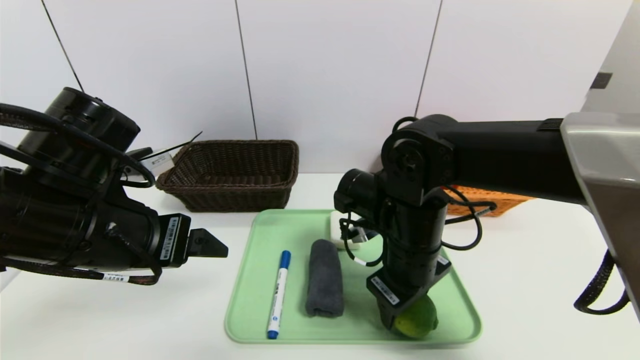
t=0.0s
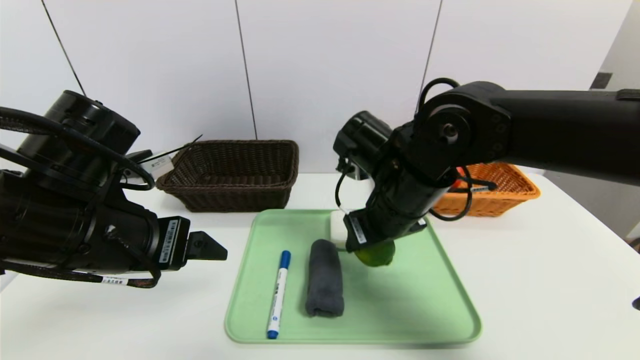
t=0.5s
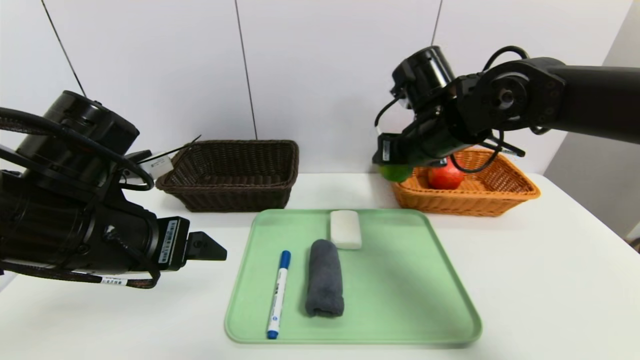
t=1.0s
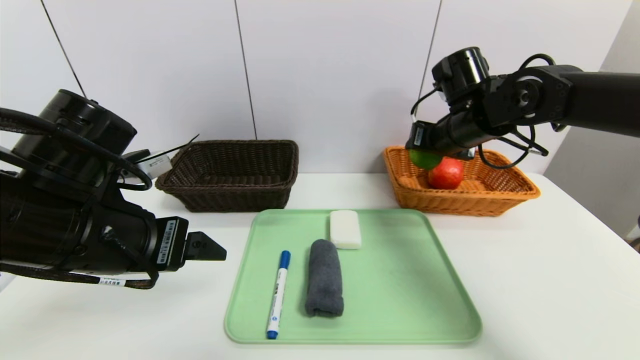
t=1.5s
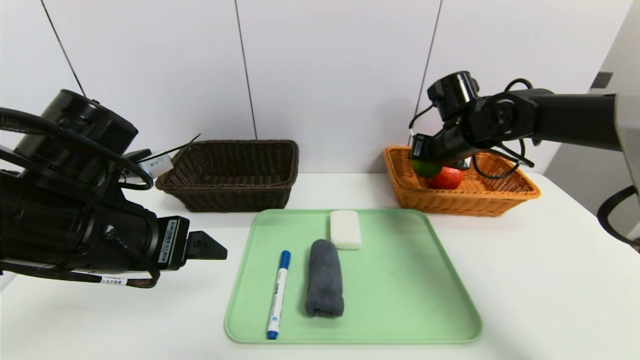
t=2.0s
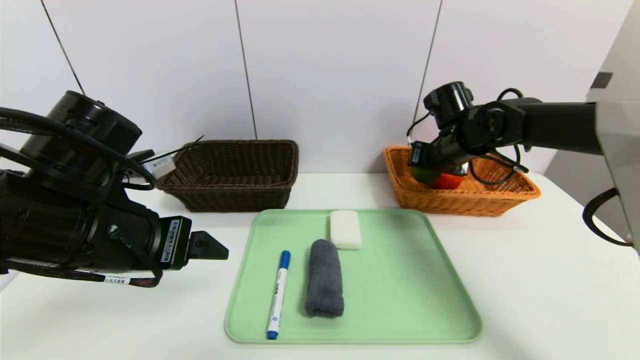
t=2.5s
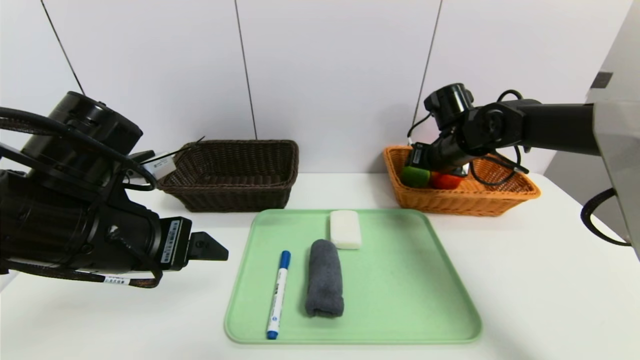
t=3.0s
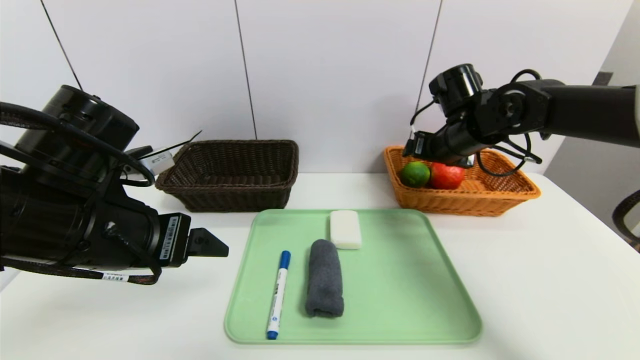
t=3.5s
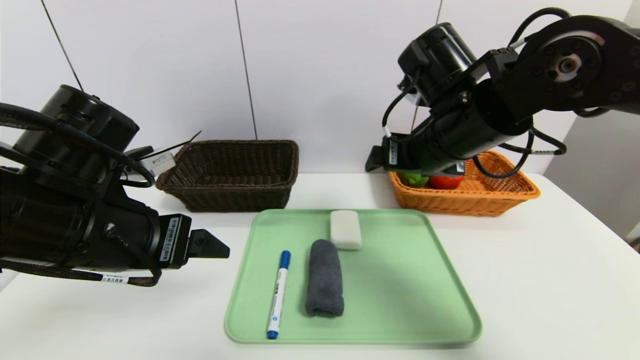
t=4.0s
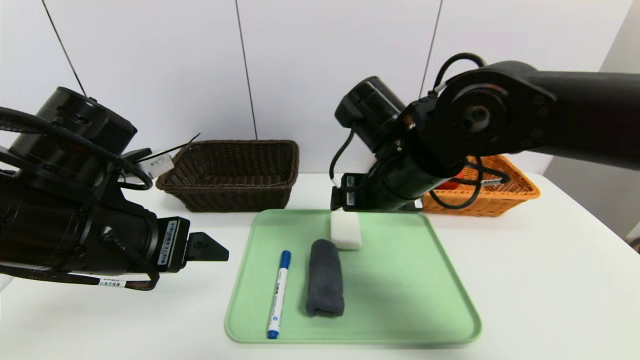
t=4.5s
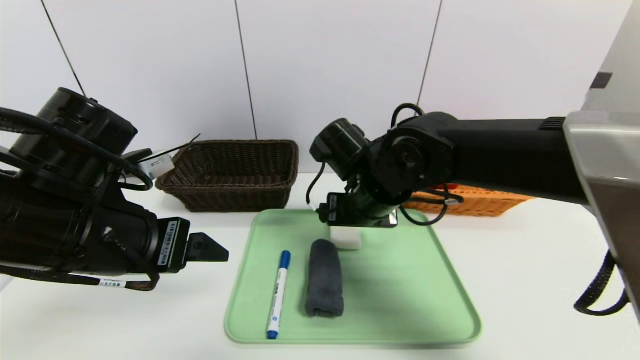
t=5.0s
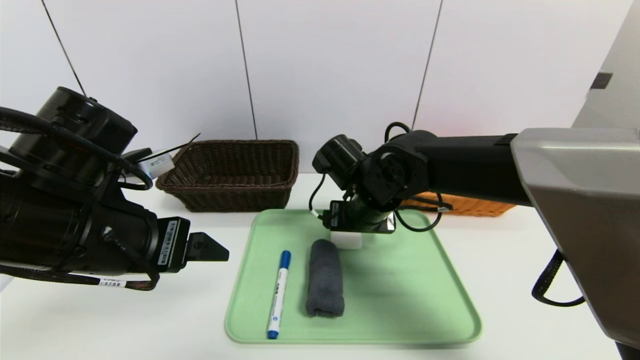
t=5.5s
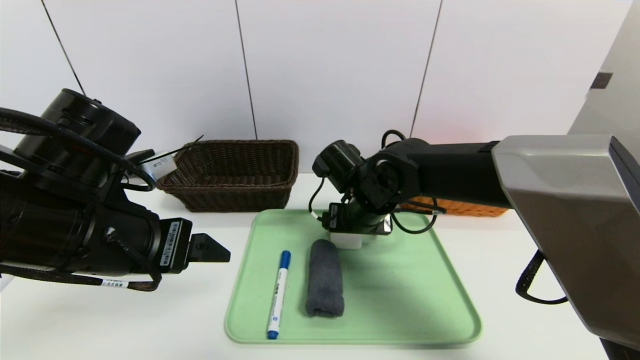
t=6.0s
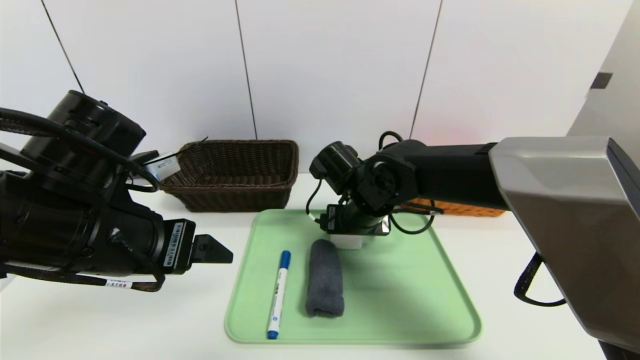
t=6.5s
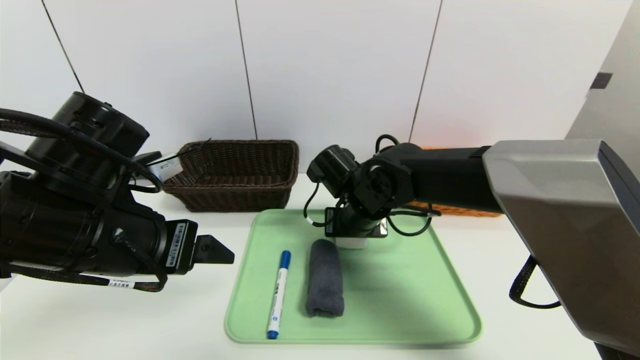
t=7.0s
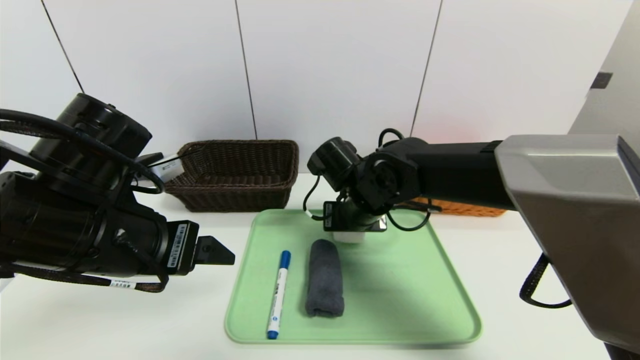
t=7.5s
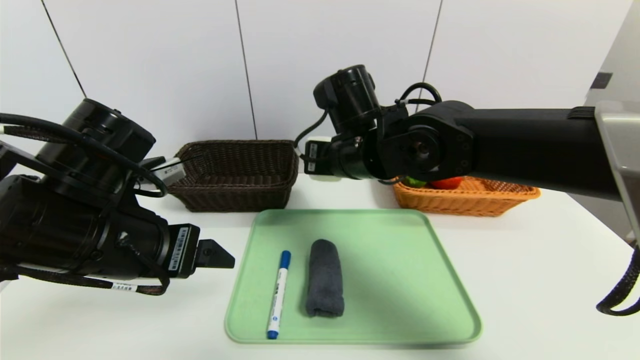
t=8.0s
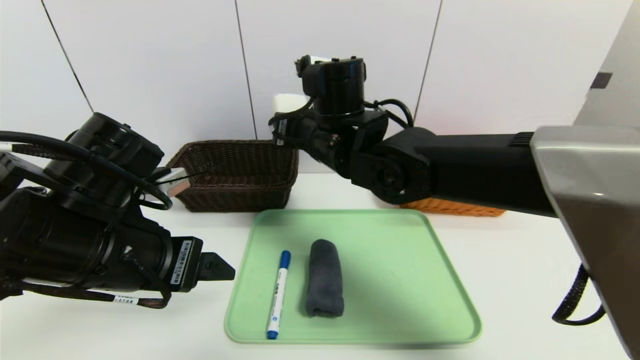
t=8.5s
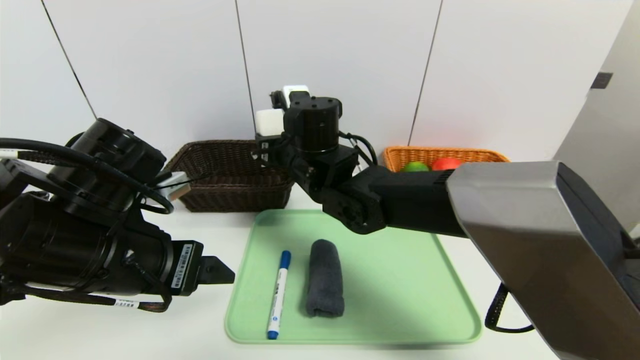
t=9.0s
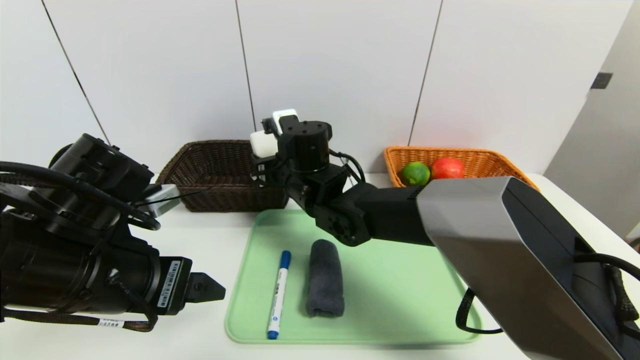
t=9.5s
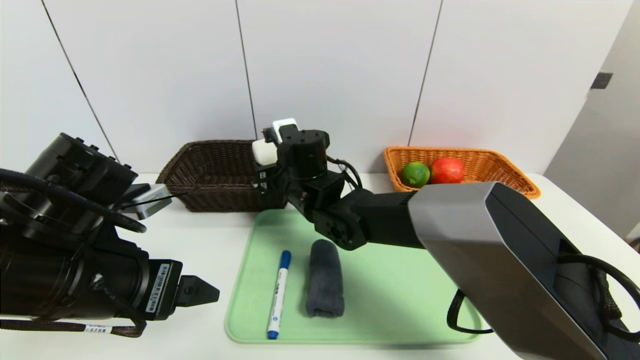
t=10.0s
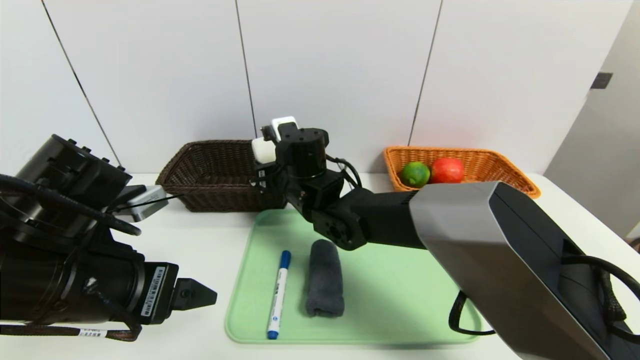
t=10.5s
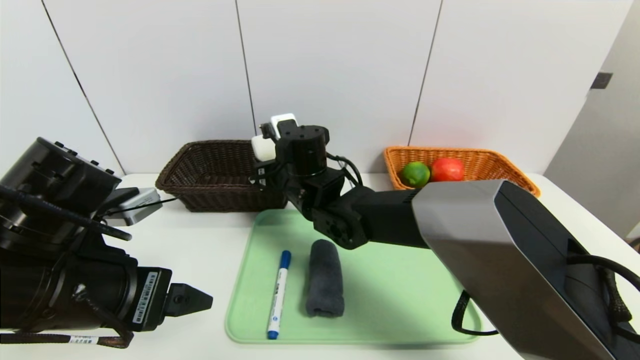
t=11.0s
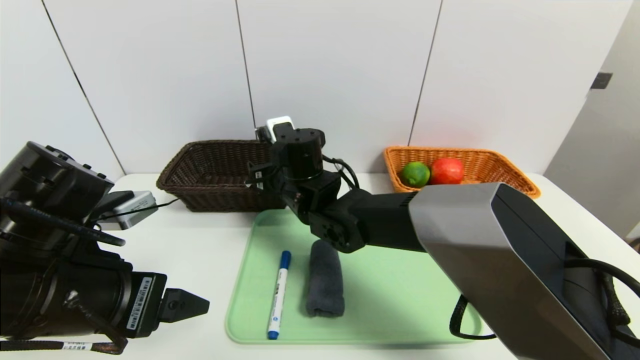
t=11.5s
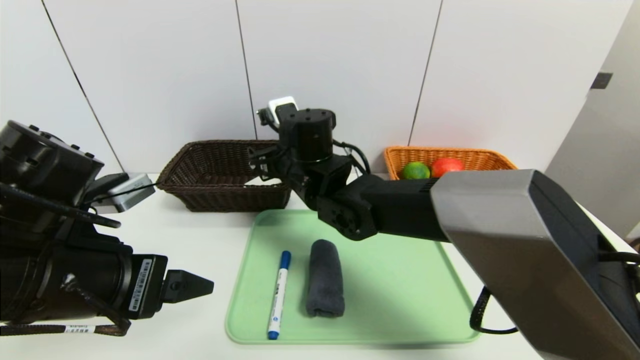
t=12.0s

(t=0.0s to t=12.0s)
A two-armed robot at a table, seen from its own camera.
Task of the whole recording: place the food in the right basket with the right gripper, and place the non food items in the left basket with the left gripper.
Step, t=0.0s - t=3.5s: Grasp the lime and put it in the right basket.
Step, t=4.0s - t=12.0s: Grasp the soap and put it in the left basket.
t=0.0s - t=2.0s: The right gripper heads forward and to the right, covering some 20 cm.
t=2.0s - t=4.0s: The right gripper travels backward, to the left and upward by approximately 15 cm, and opens its fingers.
t=4.0s - t=6.0s: The right gripper travels downward and to the left by about 15 cm.
t=6.0s - t=8.0s: The right gripper moves upward, some 10 cm, and closes.
t=8.0s - t=10.0s: The right gripper is displaced downward and to the left by roughly 10 cm.
t=10.0s - t=12.0s: The right gripper opens up.

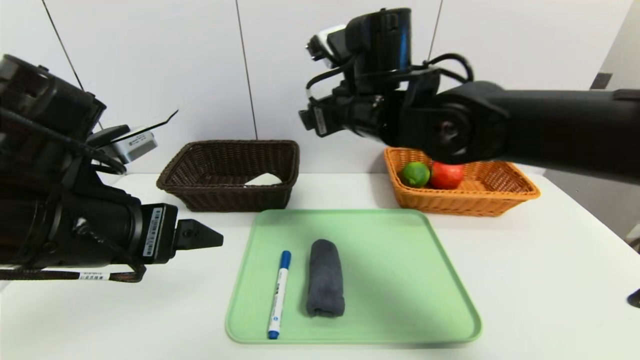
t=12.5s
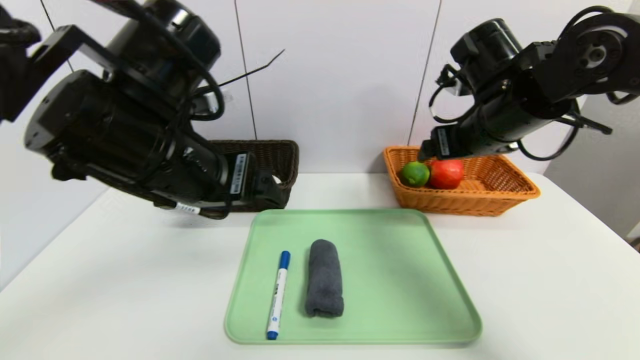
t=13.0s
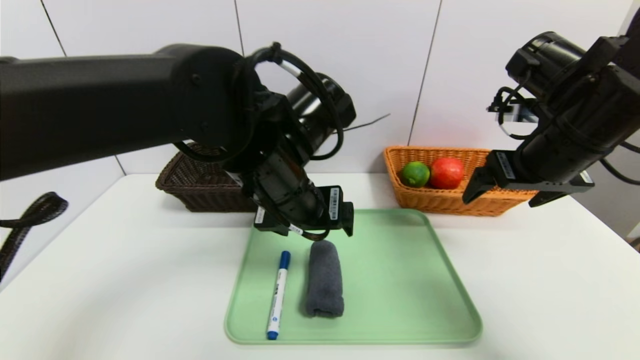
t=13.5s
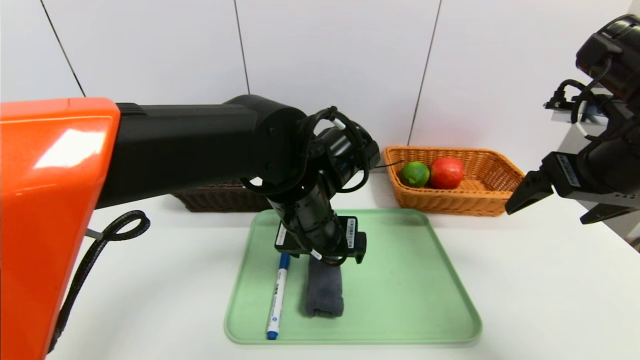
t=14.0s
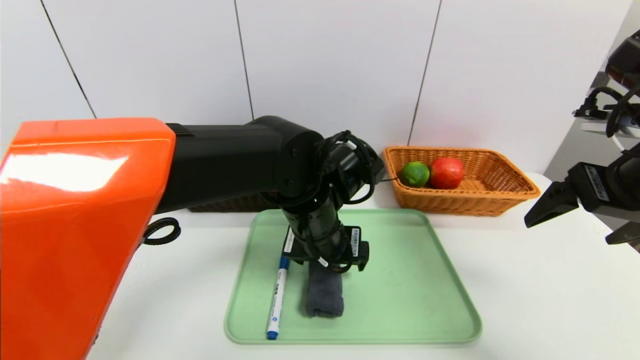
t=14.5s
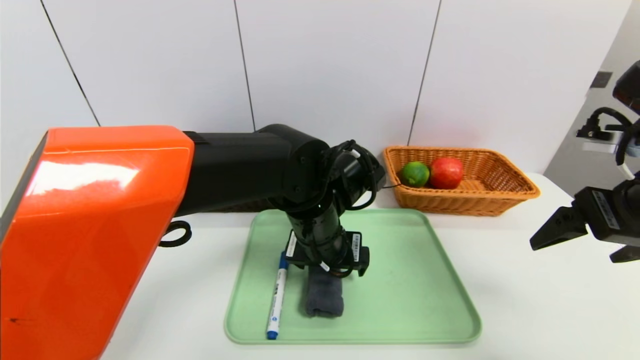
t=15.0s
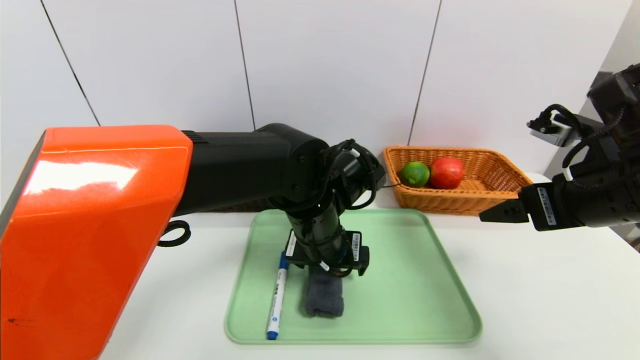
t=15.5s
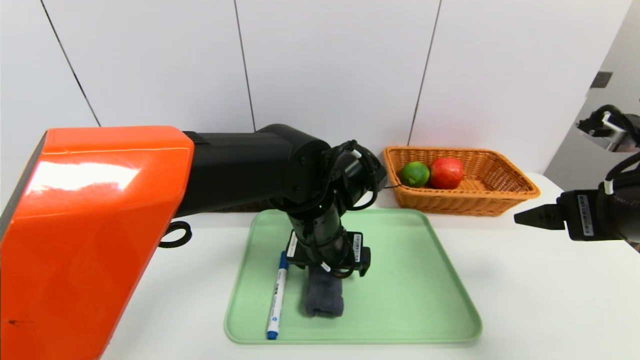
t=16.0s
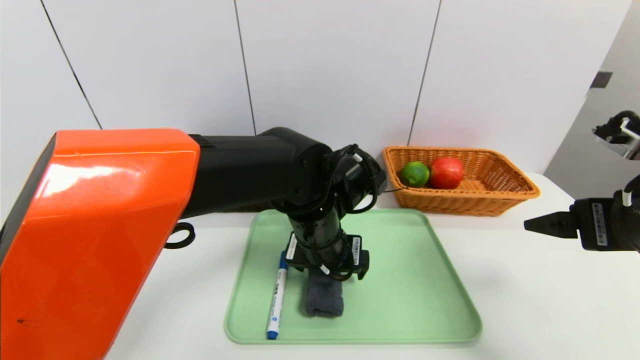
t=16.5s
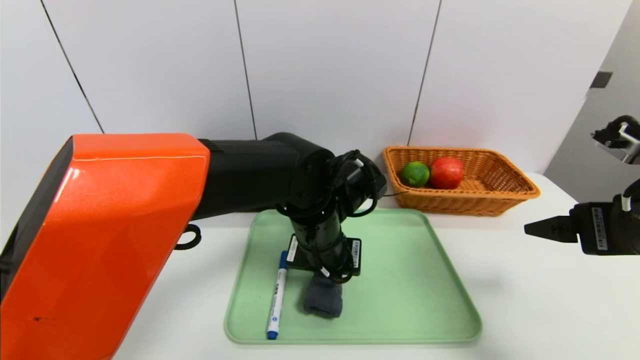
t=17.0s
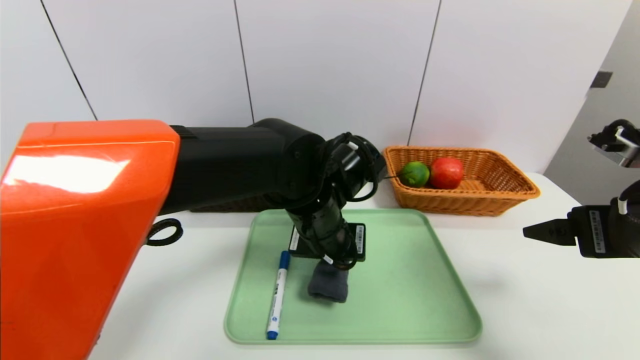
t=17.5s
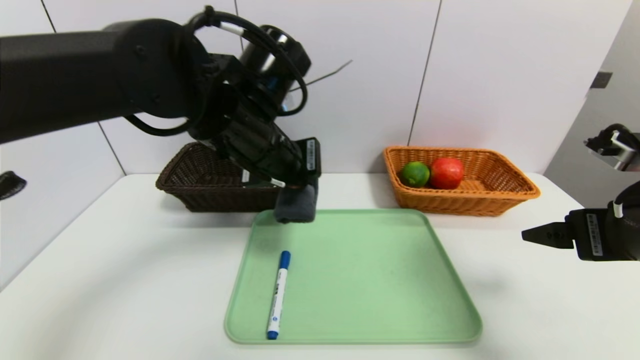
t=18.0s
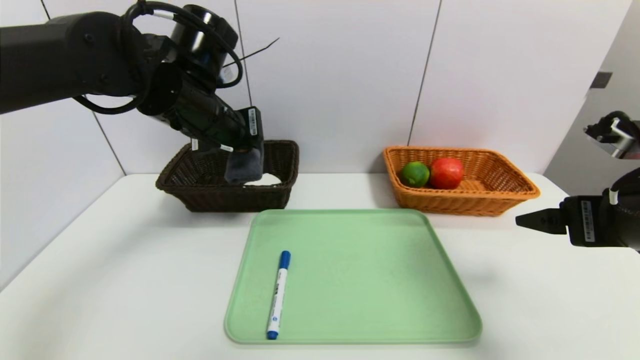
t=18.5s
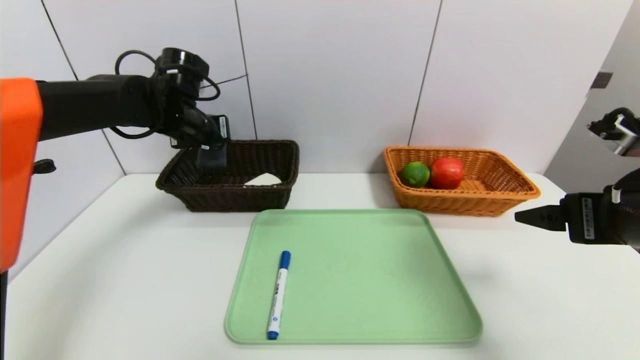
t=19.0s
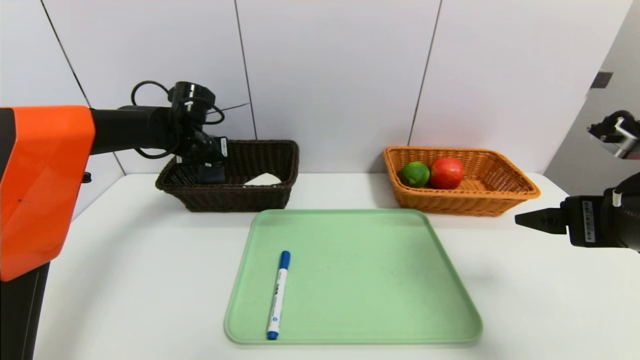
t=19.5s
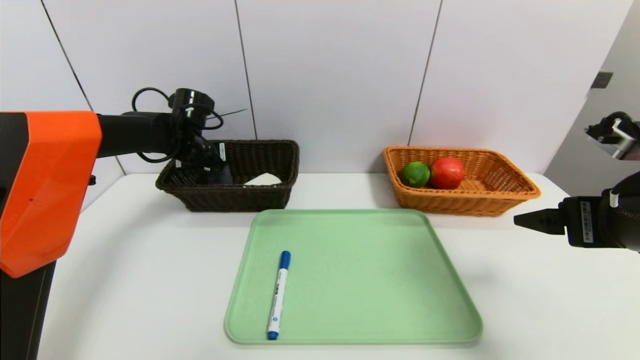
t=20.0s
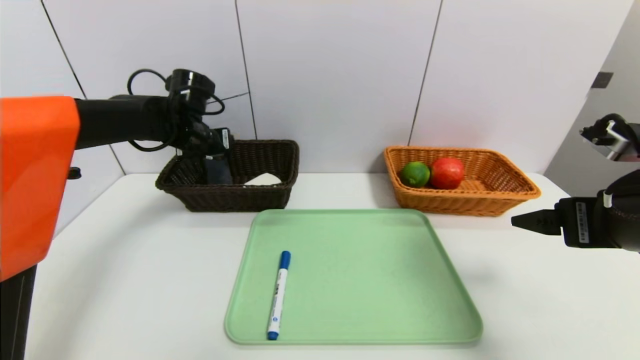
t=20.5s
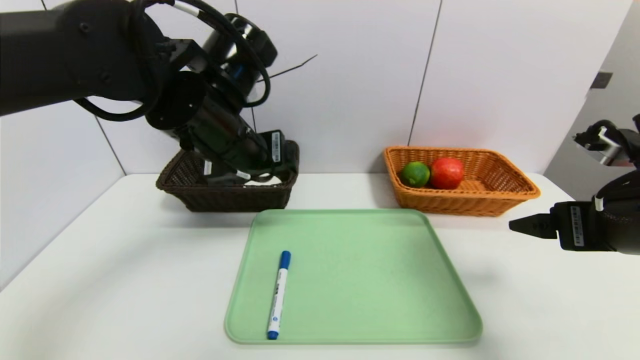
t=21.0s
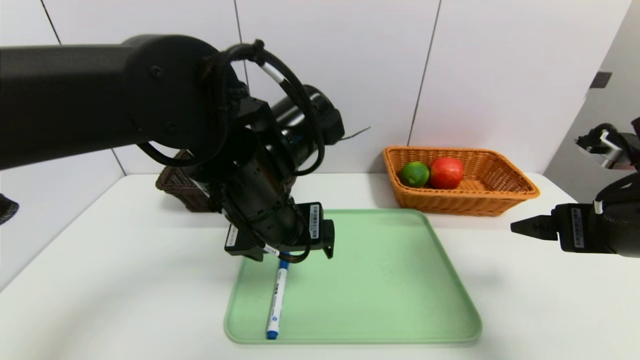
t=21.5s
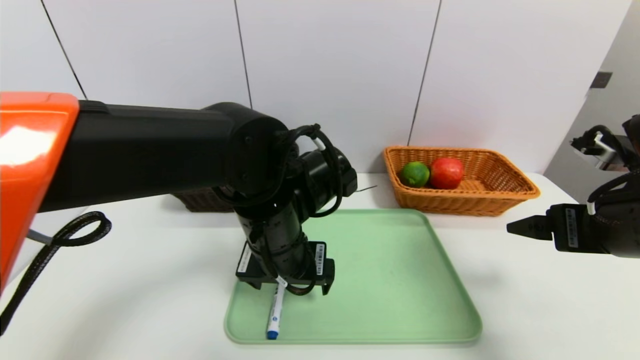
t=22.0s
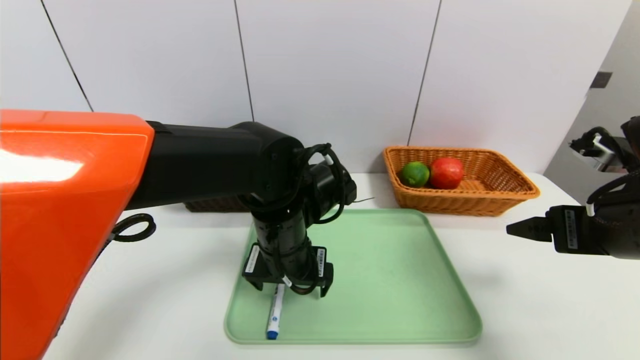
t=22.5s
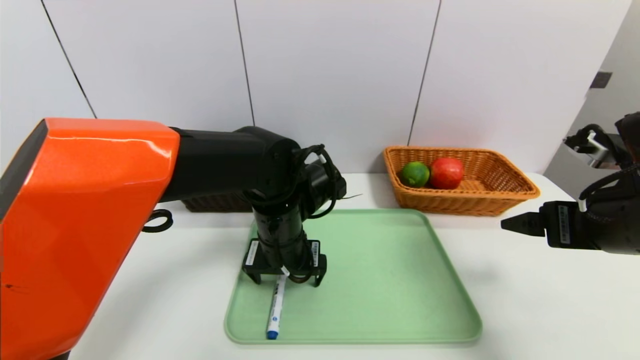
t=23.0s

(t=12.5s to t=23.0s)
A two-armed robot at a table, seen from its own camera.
Task of the whole recording: place the food in the right basket with the right gripper, and place the non food items in the left basket with the left gripper.
Step, t=12.5s - t=20.5s: Grasp the grey towel and put it in the left basket.
t=12.5s - t=14.5s: The left gripper goes roughly 25 cm to the right, forward and downward. Meanwhile the right gripper is displaced to the right and backward by roughly 25 cm.
t=14.5s - t=16.5s: The right gripper ends up about 5 cm from where it was.
t=16.5s - t=19.0s: The left gripper shifts some 25 cm to the left and forward, and closes.
t=19.0s - t=21.0s: The left gripper is displaced backward and to the right by roughly 20 cm, and opens.
t=21.0s - t=23.0s: The left gripper travels downward and to the right by approximately 15 cm.
